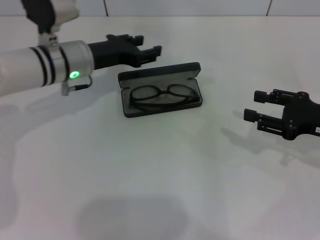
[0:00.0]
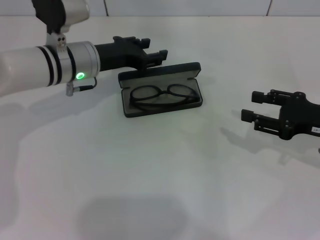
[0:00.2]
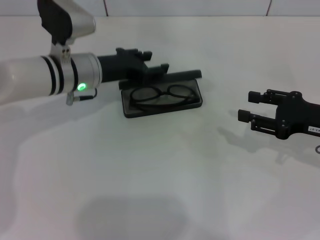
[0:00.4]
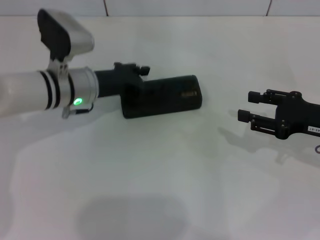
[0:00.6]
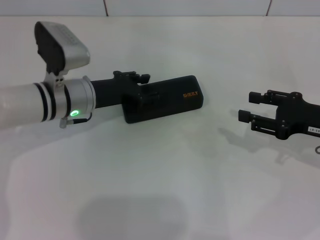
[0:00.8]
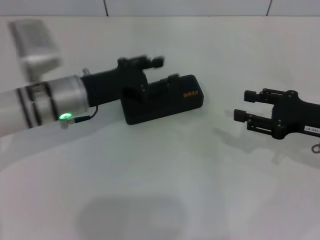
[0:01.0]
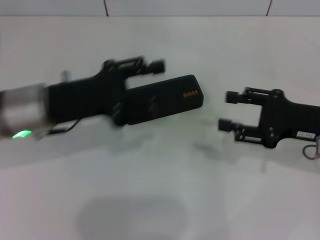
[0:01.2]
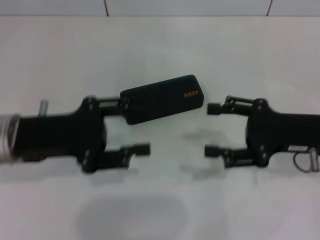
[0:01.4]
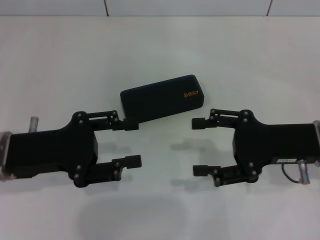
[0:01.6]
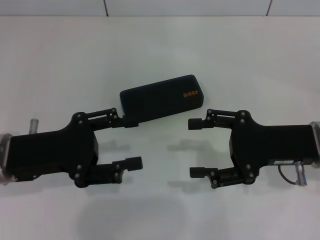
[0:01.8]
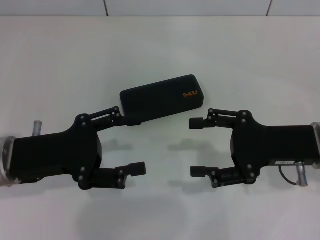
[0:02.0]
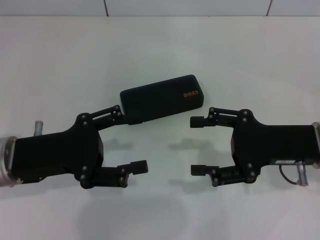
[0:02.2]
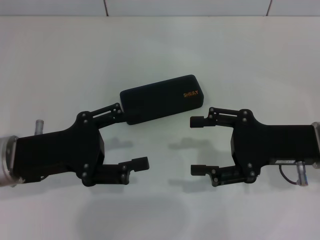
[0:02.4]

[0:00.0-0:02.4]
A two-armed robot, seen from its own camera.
0:00.0 to 0:01.2: The left gripper goes roughly 10 cm backward.
0:01.2 to 0:02.4: The left gripper travels backward by some 5 cm, and opens up.
